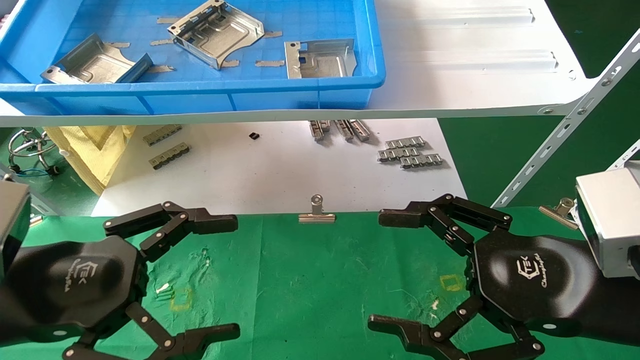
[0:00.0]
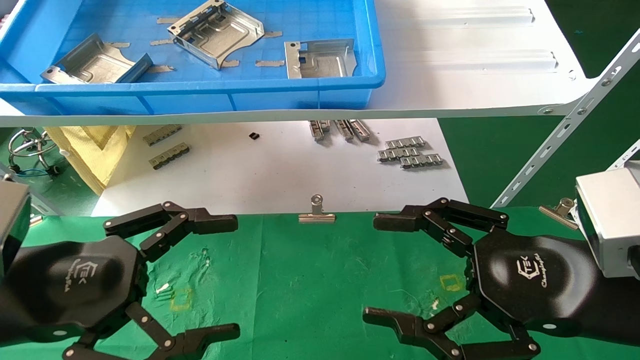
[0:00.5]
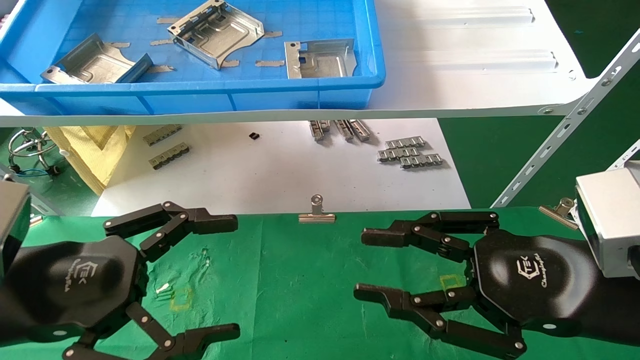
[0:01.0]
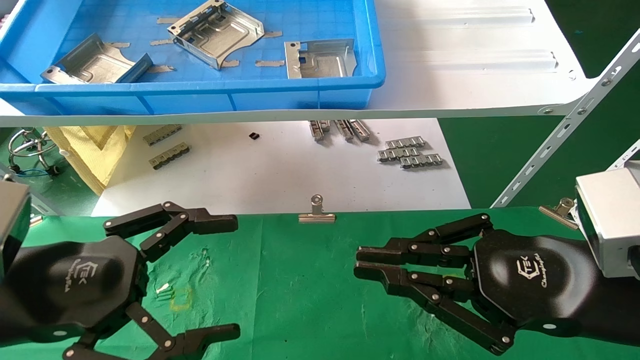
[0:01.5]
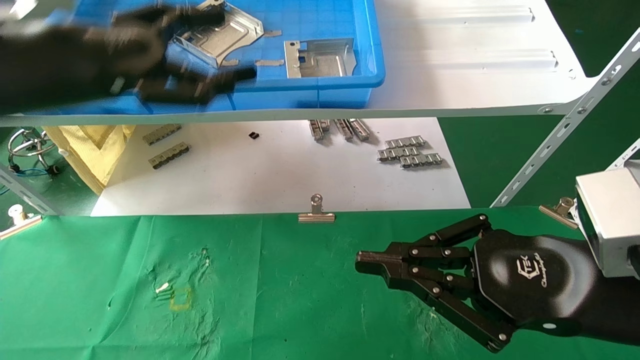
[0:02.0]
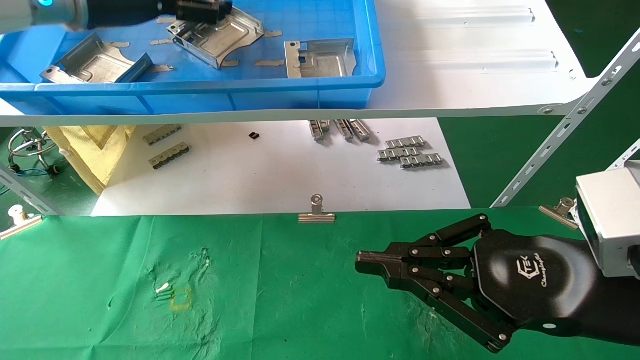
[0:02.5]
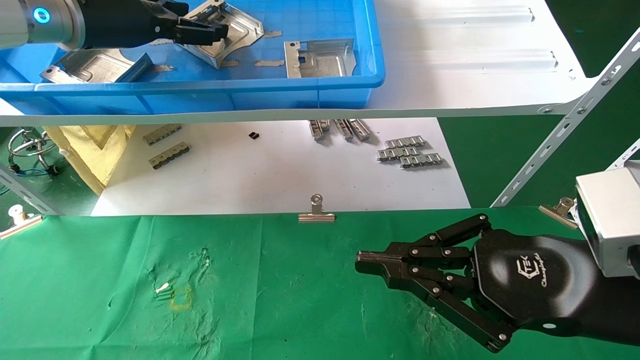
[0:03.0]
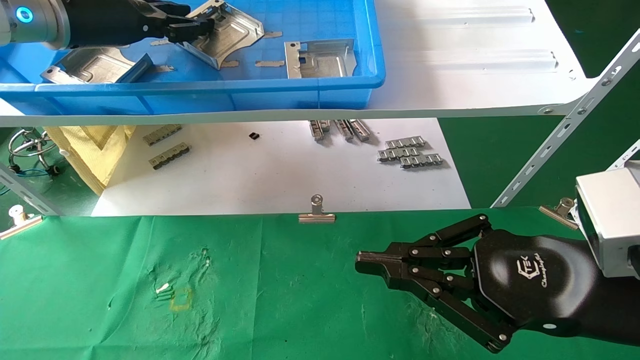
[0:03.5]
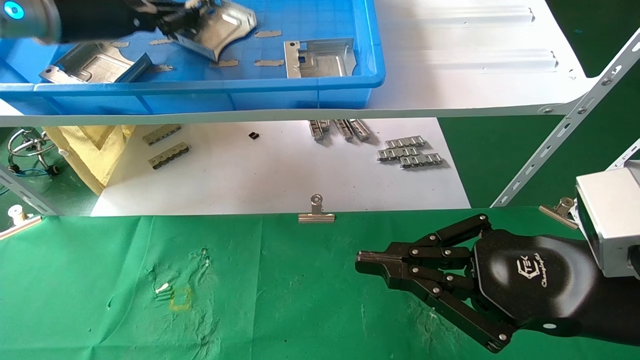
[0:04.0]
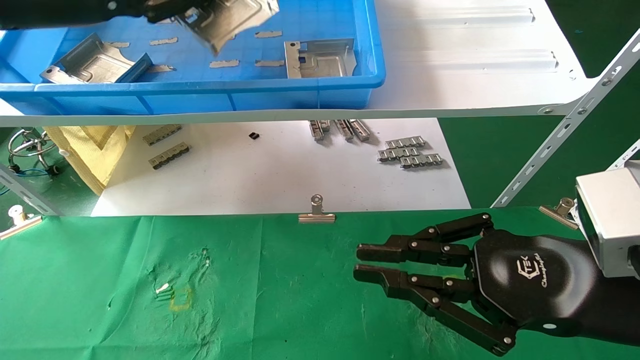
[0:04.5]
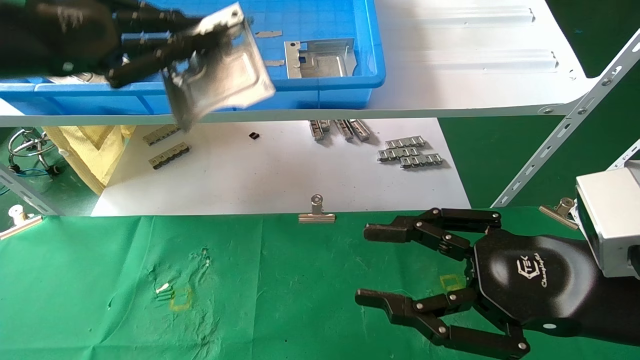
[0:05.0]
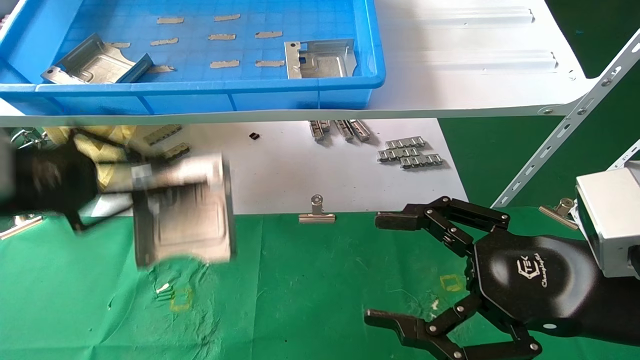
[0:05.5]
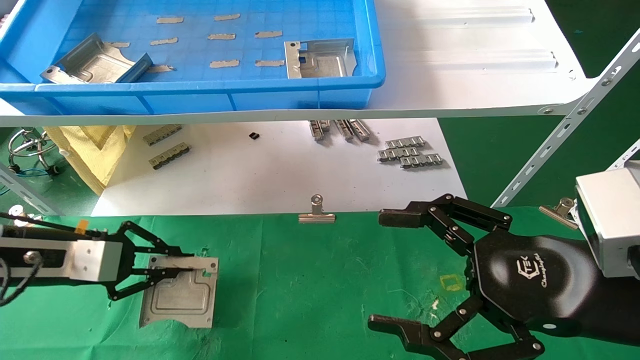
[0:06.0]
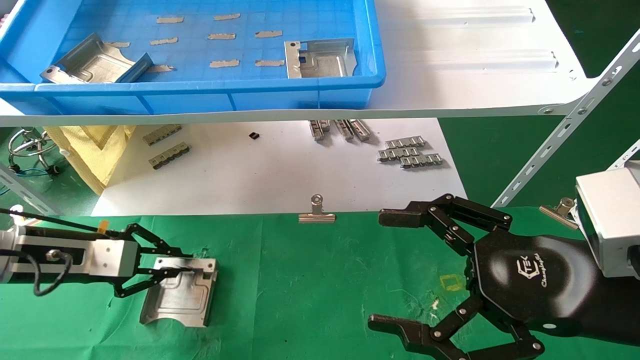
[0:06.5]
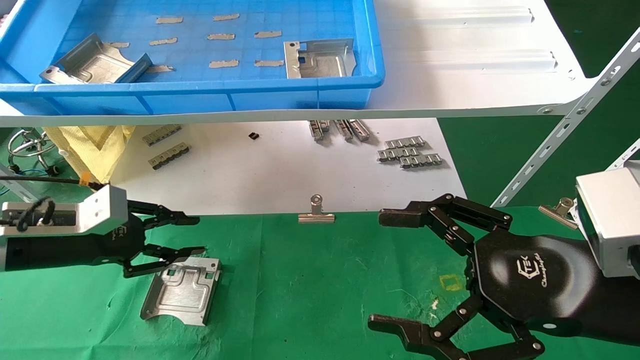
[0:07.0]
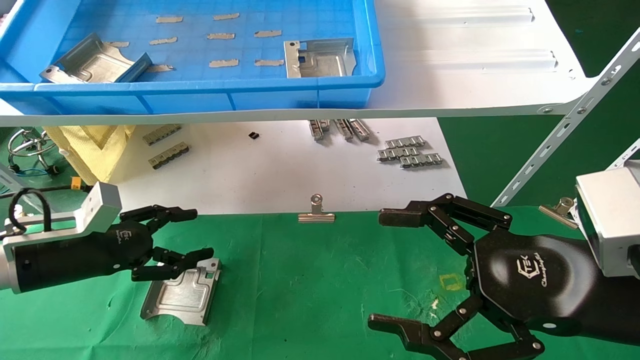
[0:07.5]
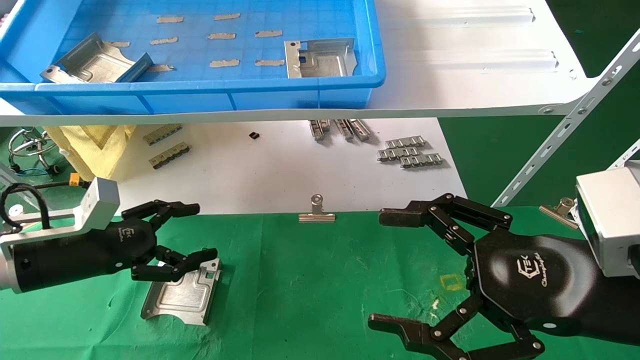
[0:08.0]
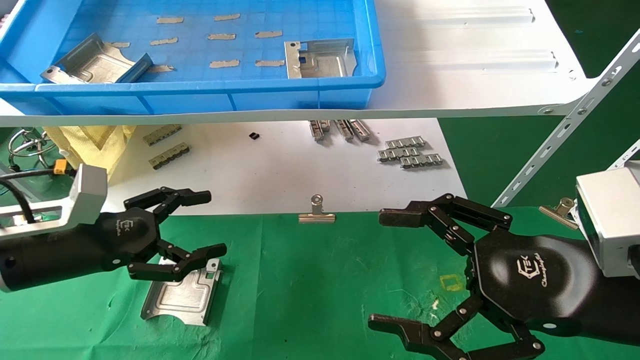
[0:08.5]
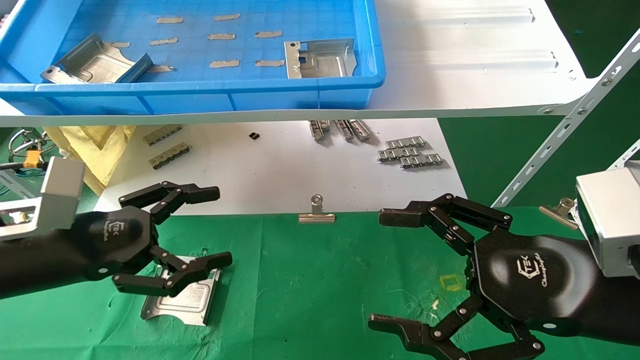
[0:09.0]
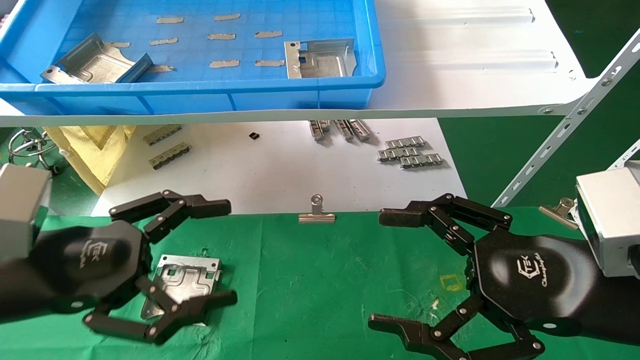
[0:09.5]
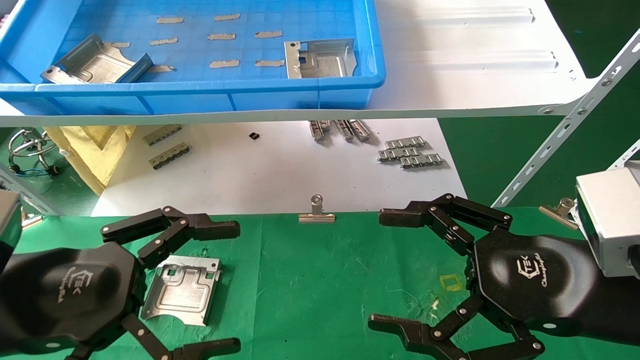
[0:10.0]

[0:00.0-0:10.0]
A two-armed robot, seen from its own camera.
Task of the whole recording: use the mechanical arm to pick up the parts and place them on the table.
Step, 0:02.0 to 0:03.5: Pick up the hard drive bracket from the feeding area.
Step, 0:04.0 to 0:07.0: Place the hard drive bracket into the box.
0:00.0 to 0:02.0: The right gripper closes up, while the left gripper goes roughly 20 cm upward and forward.
0:02.0 to 0:04.0: The left gripper travels forward and upward by roughly 10 cm, and closes up.
0:04.0 to 0:06.0: The right gripper opens its fingers. The left gripper goes roughly 25 cm downward.
0:06.0 to 0:08.0: The left gripper opens.
0:08.0 to 0:10.0: The left gripper moves backward and to the right, approximately 15 cm.

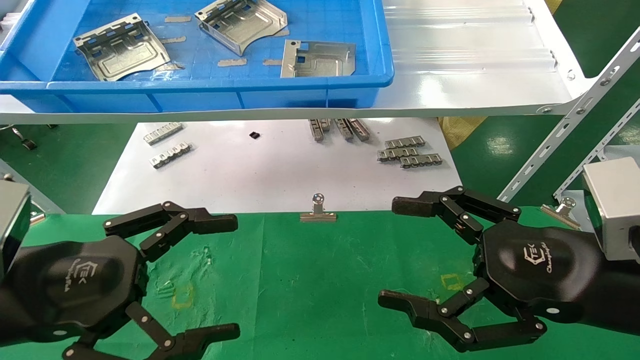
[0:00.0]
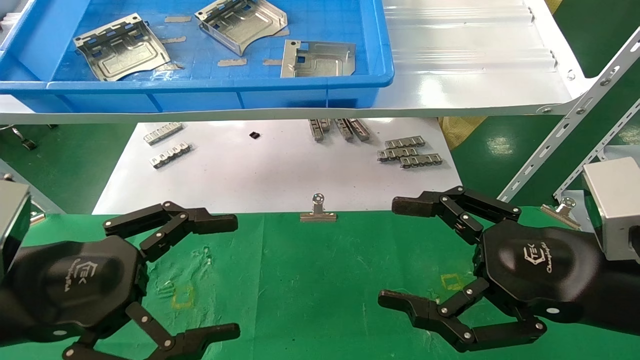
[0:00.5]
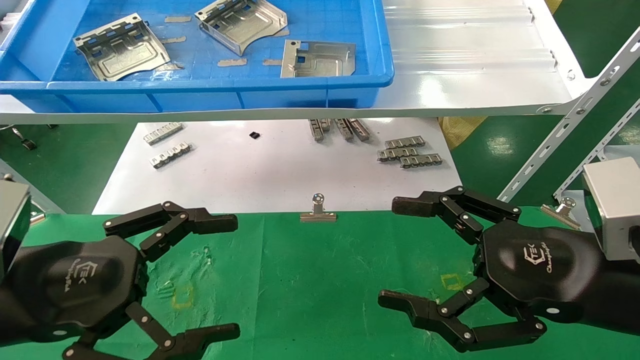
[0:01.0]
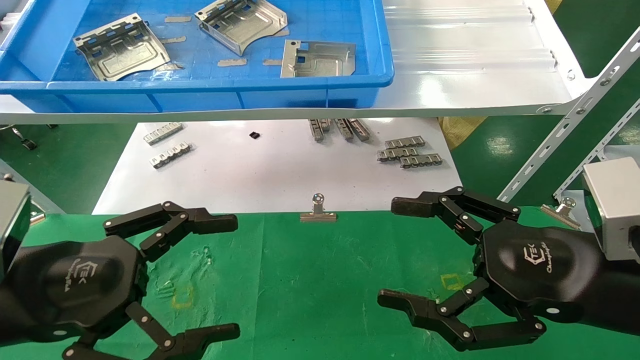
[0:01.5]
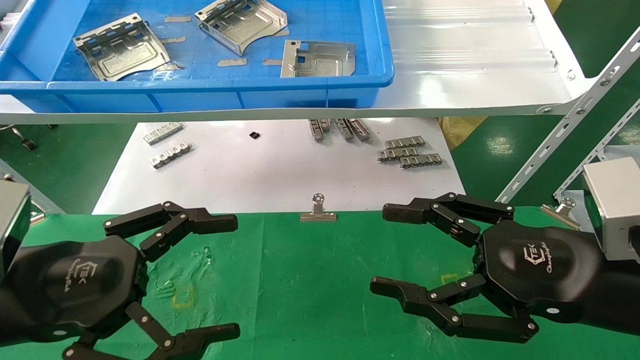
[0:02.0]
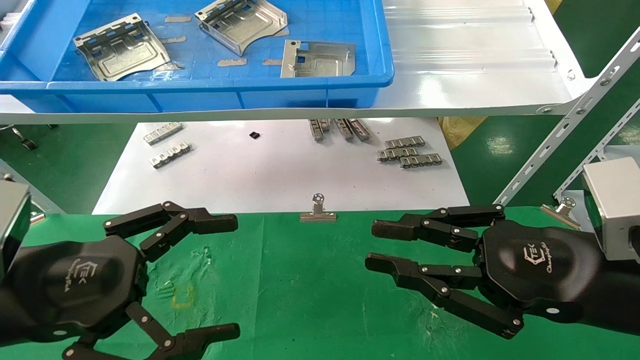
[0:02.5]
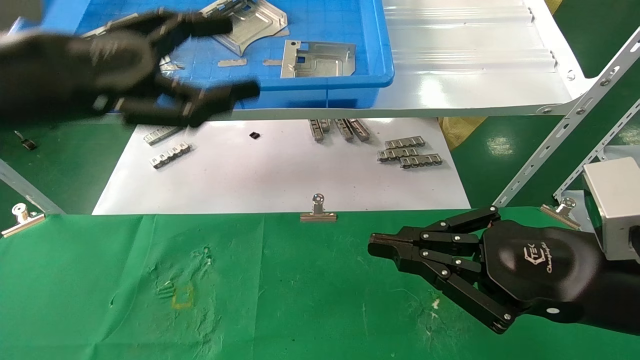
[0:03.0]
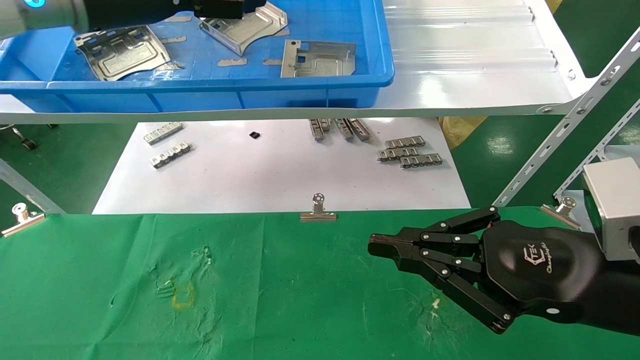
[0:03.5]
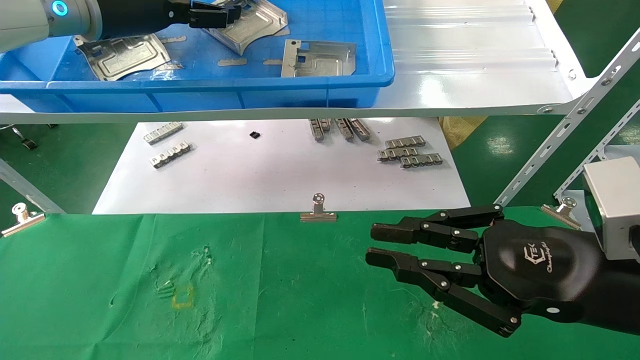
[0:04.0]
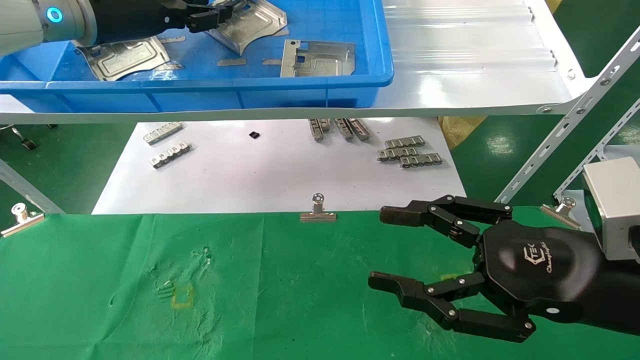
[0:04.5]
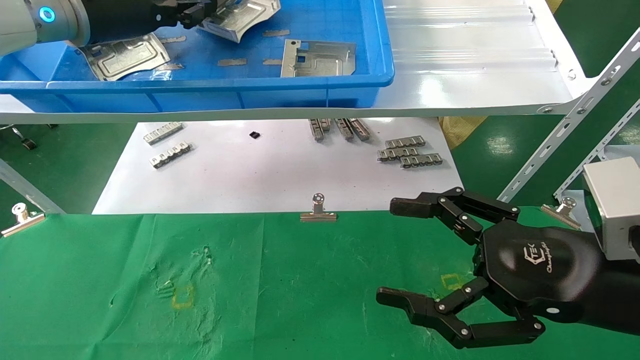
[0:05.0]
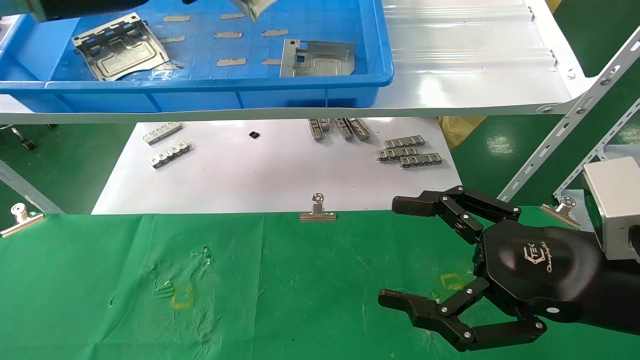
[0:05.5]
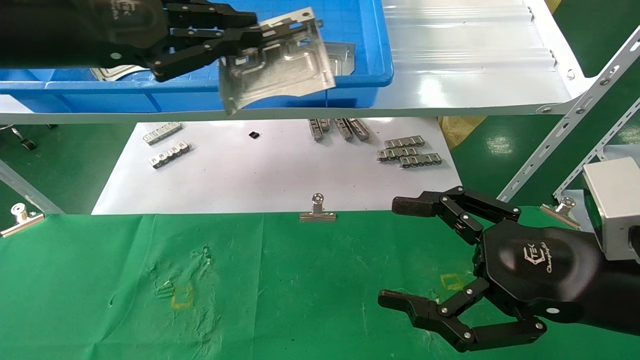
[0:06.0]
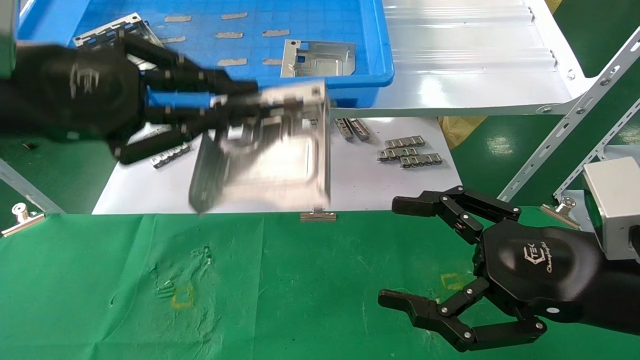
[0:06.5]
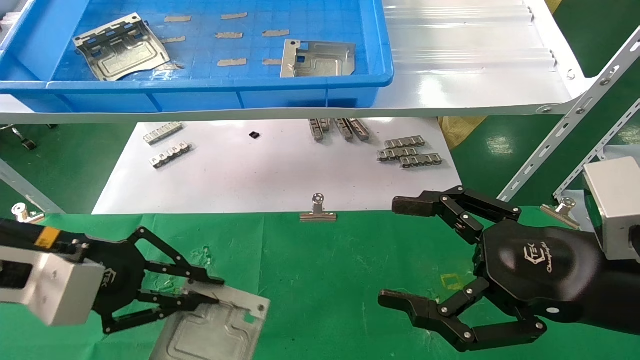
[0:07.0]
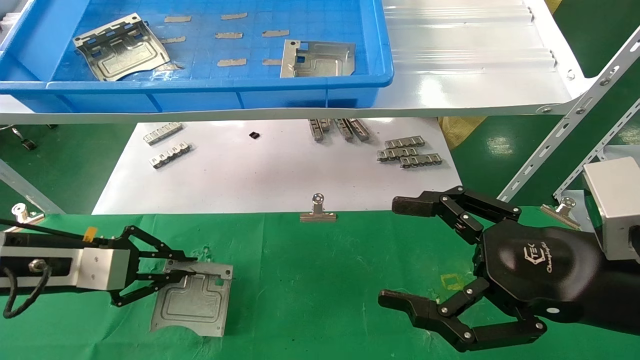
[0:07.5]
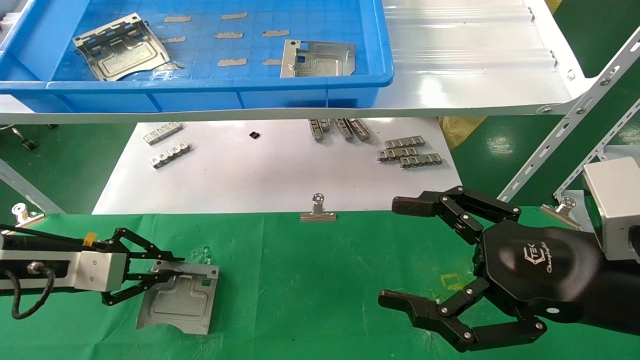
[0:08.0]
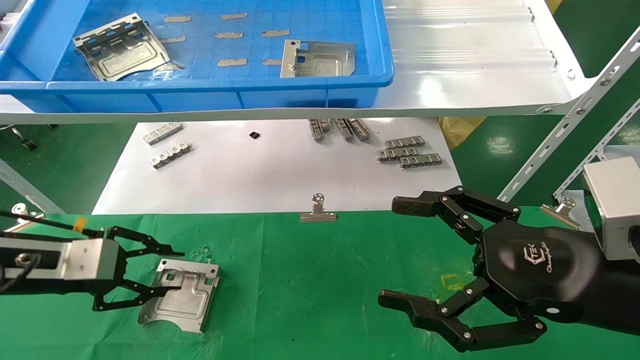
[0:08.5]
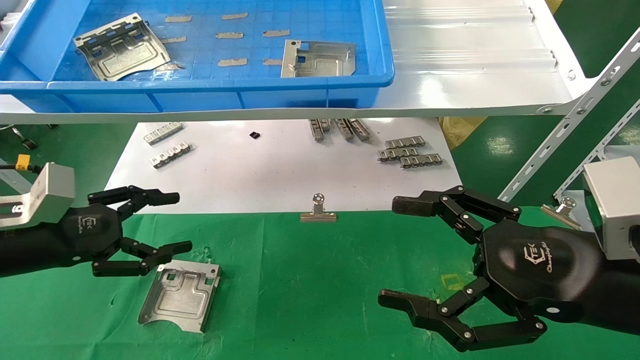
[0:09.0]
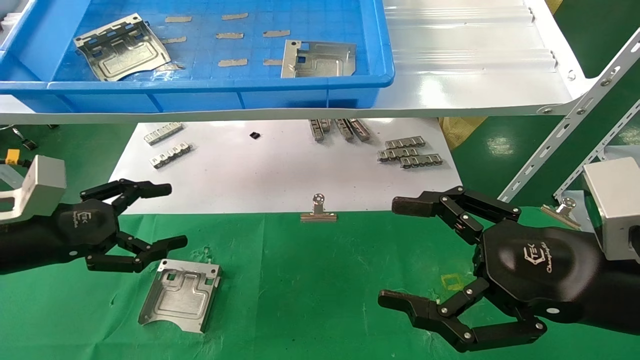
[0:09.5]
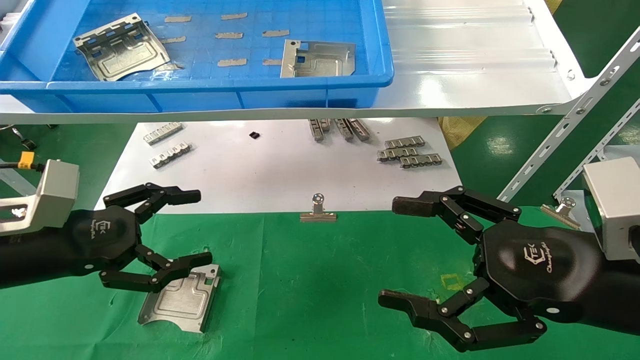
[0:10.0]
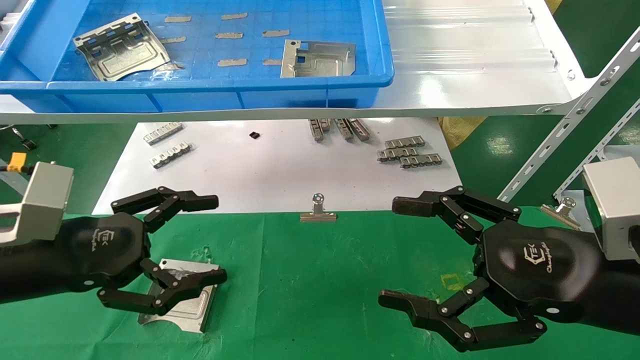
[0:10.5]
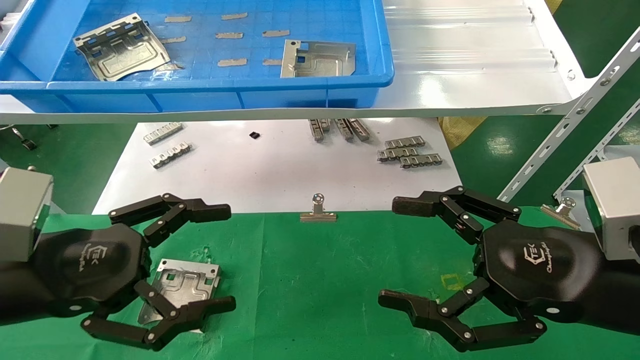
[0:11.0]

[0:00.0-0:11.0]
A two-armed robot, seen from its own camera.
Task of the whole recording: use the mechanical arm to pick up the parts and place them on the table.
Step, 0:03.0 to 0:05.0: Pick up the hard drive bracket from the feeding area.
Step, 0:05.5 to 0:08.0: Place the hard drive bracket into the box.
0:00.0 to 0:02.0: Neither gripper changes place.
0:02.0 to 0:03.5: The right gripper closes up, while the left gripper travels upward and forward by some 30 cm.
0:03.5 to 0:05.5: The right gripper opens up. The left gripper closes up.
0:05.5 to 0:07.5: The left gripper shifts roughly 30 cm downward.
0:07.5 to 0:09.0: The left gripper opens.
0:09.0 to 0:11.0: The left gripper is displaced backward and to the right by about 10 cm.
